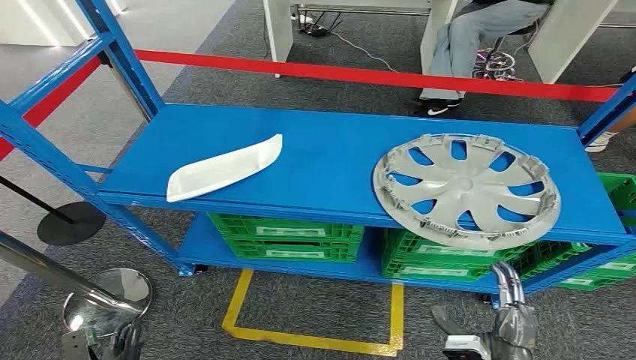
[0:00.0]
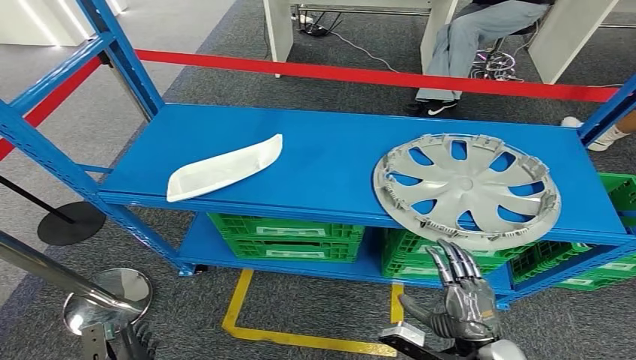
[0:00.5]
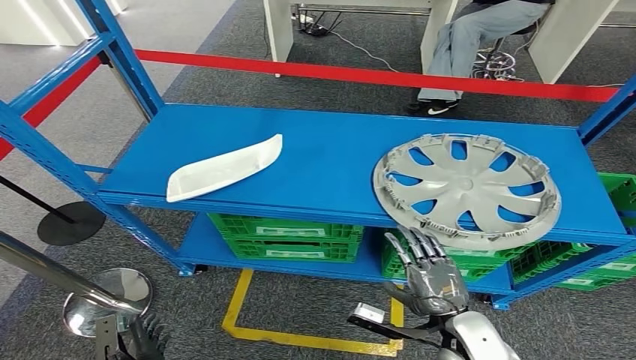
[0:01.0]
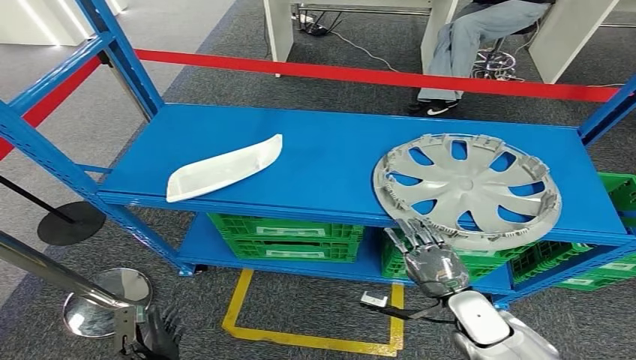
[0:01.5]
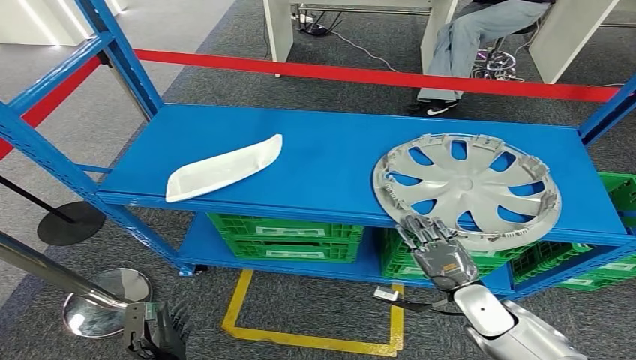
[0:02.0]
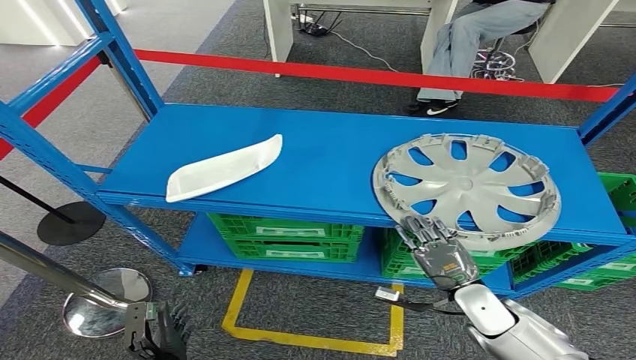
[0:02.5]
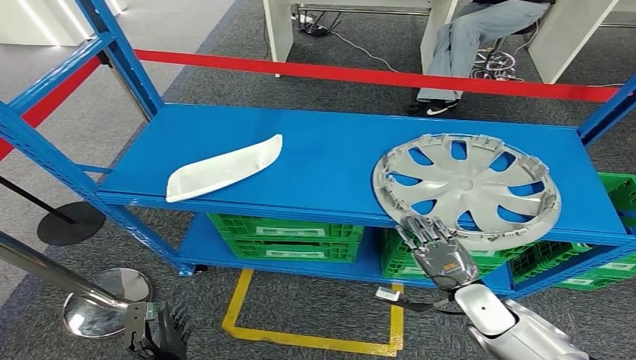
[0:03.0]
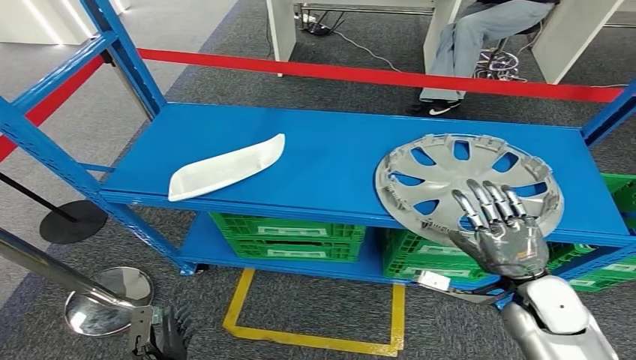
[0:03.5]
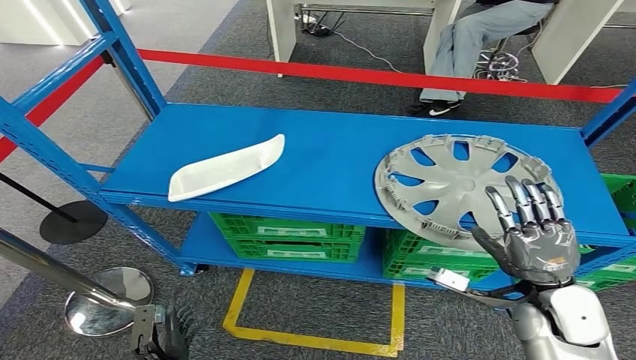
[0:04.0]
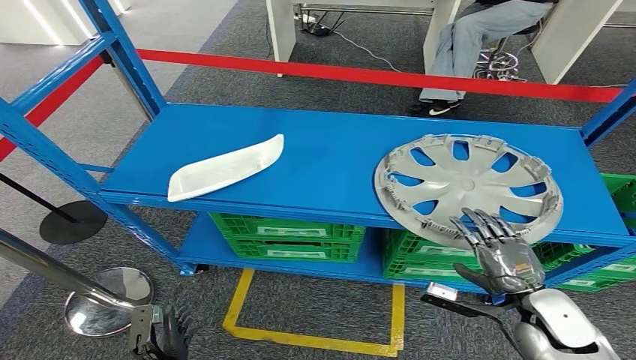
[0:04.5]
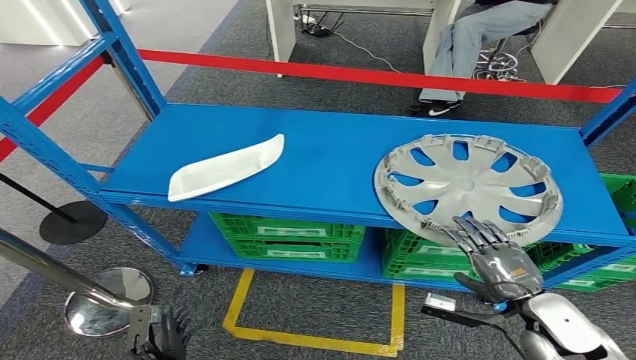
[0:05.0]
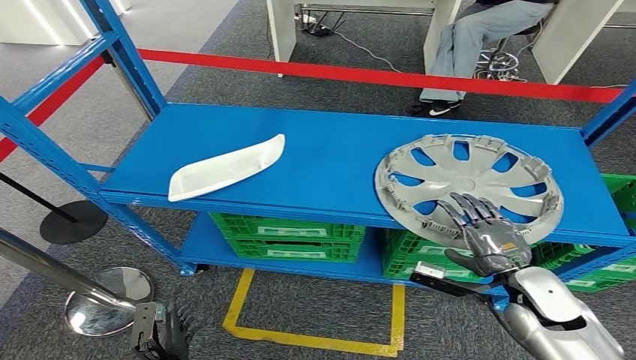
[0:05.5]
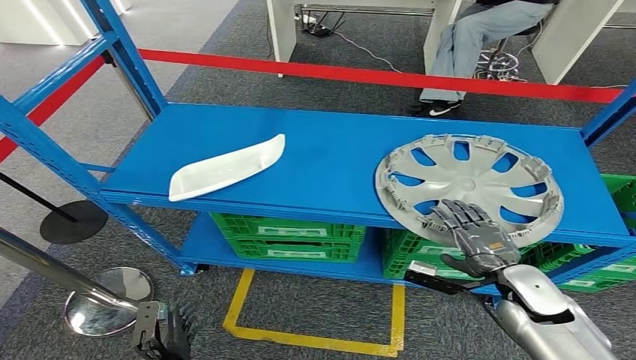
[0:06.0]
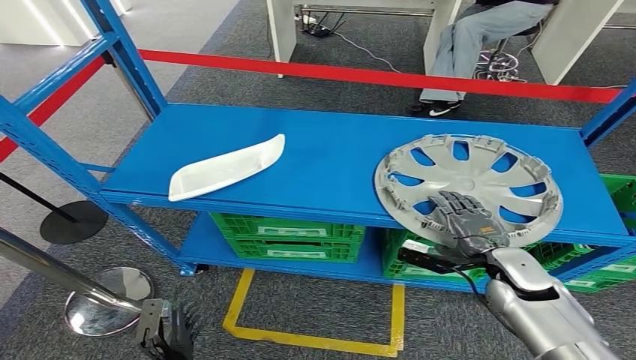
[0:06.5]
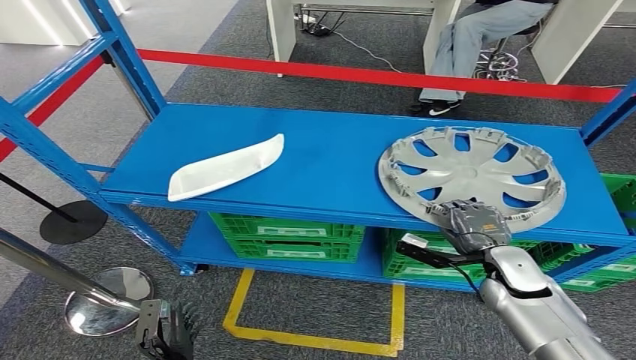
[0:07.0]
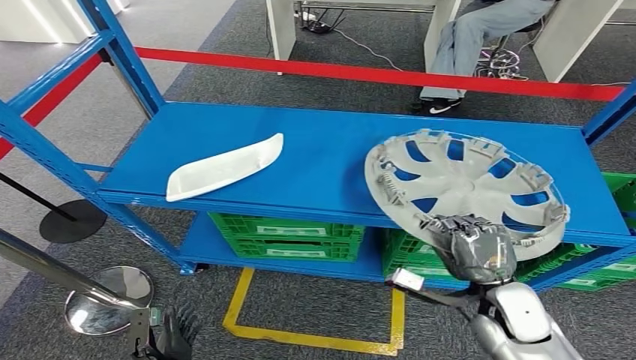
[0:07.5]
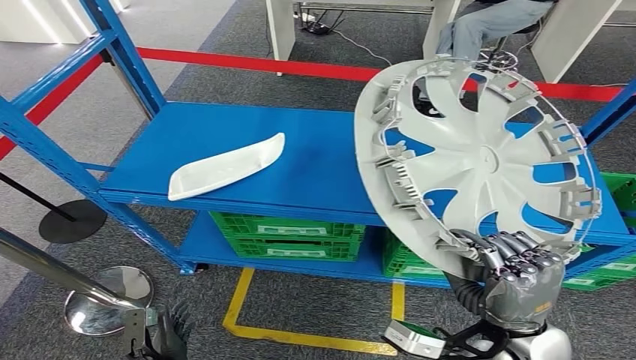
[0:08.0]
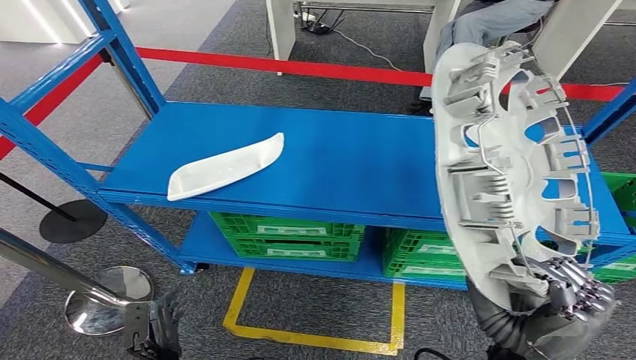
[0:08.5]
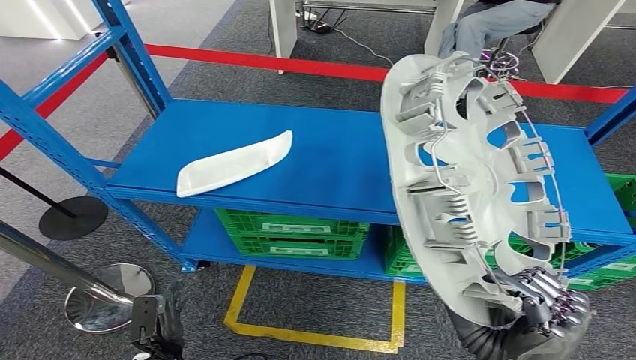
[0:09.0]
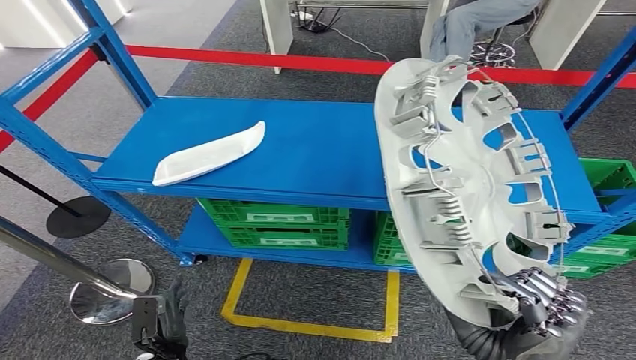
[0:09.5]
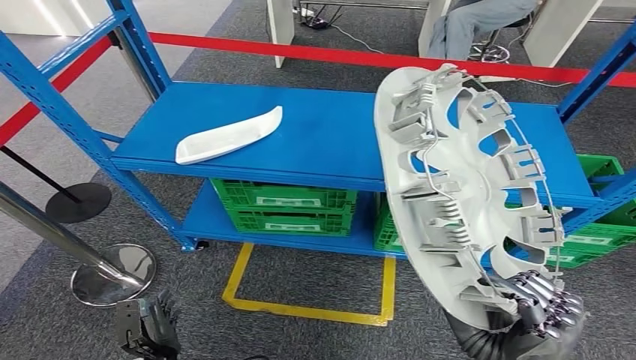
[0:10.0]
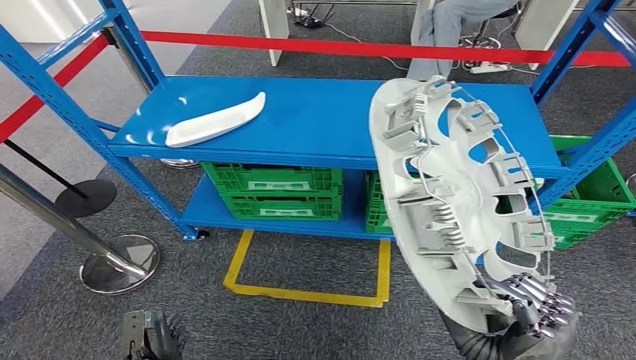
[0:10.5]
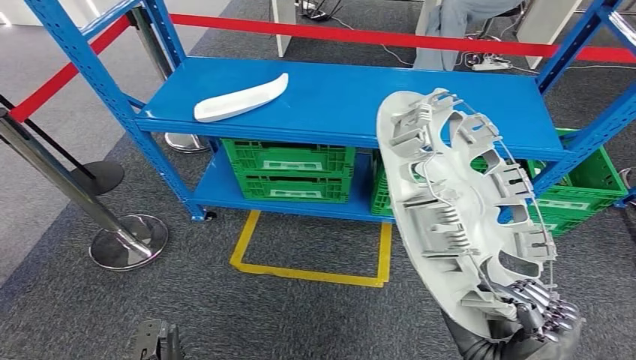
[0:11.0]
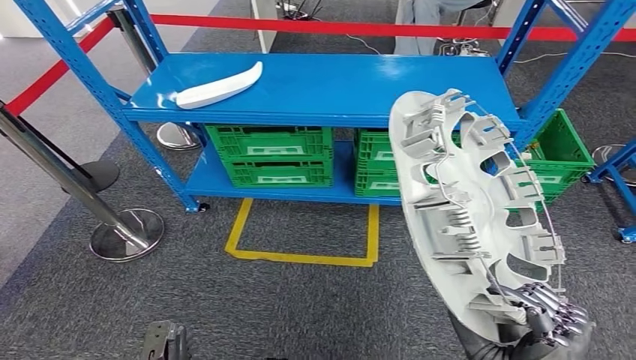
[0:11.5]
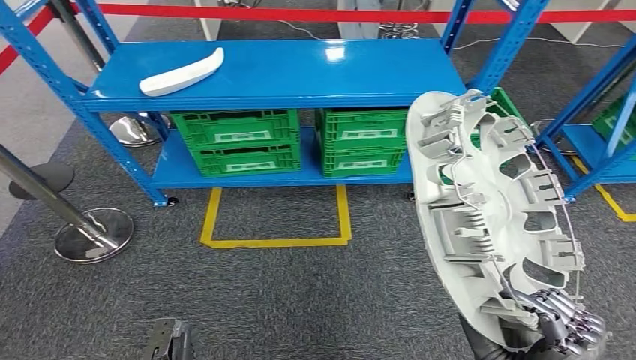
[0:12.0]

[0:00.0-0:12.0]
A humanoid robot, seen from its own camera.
Step, 0:00.0 to 0:09.5: Pick up the small component from the shelf.
0:02.0 to 0:04.0: The right hand goes some 10 cm upward and to the right.
0:04.0 to 0:06.0: The right hand moves some 5 cm.

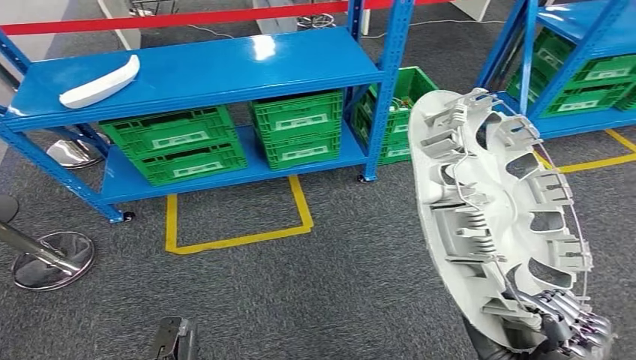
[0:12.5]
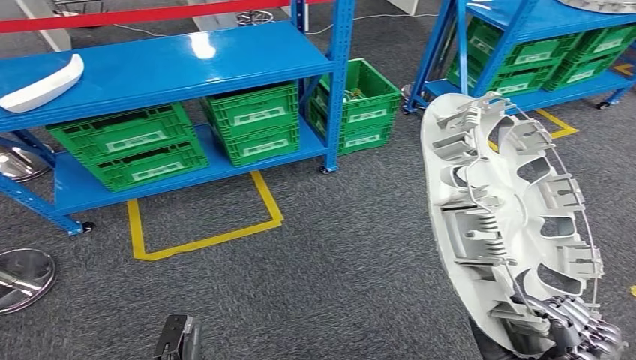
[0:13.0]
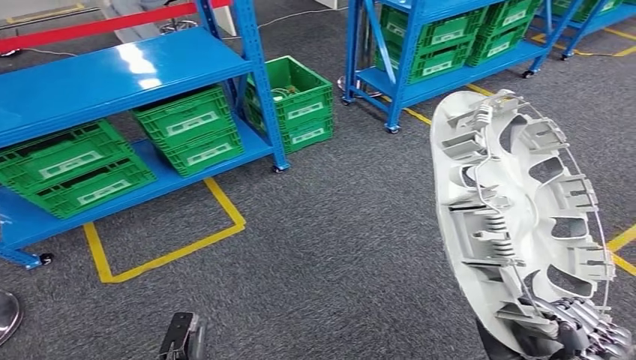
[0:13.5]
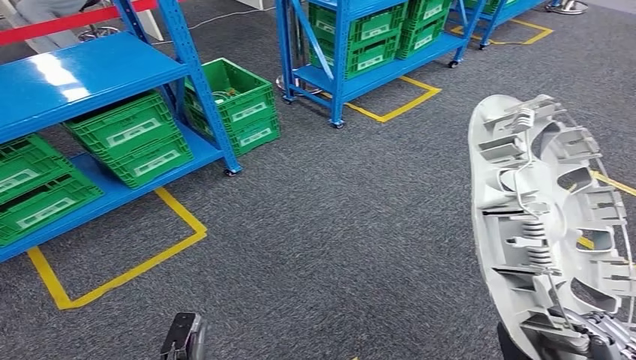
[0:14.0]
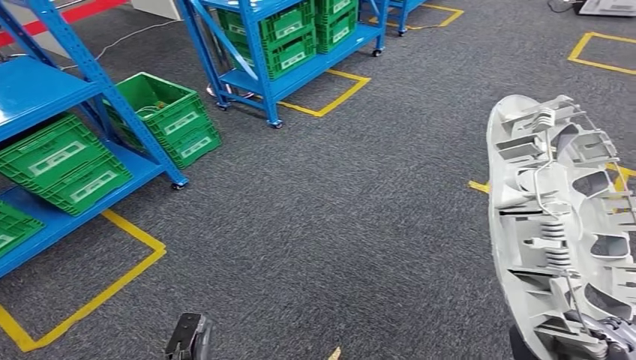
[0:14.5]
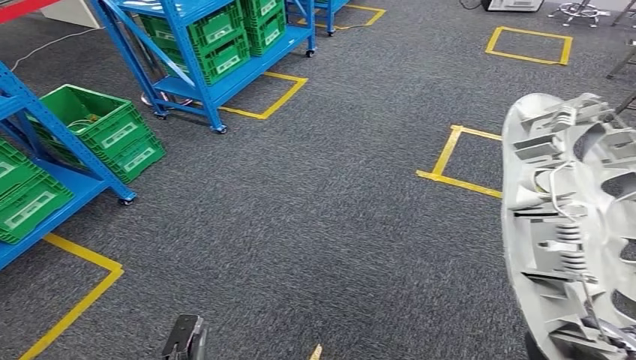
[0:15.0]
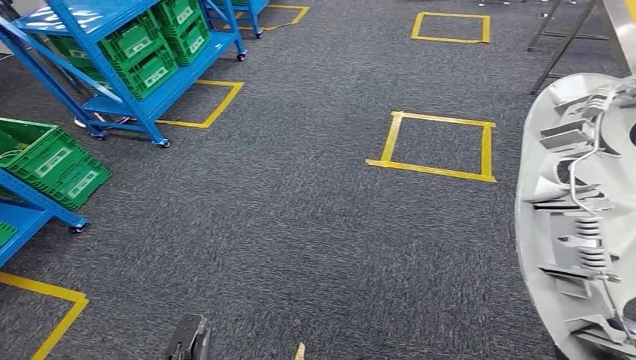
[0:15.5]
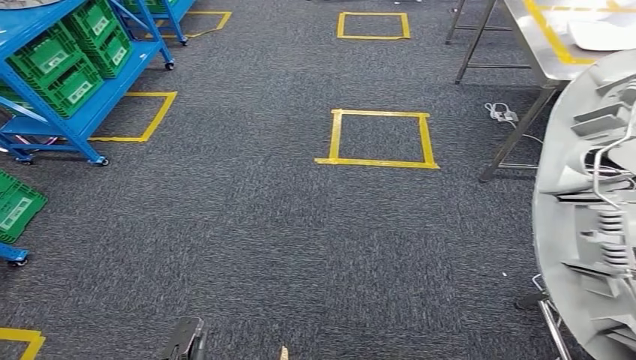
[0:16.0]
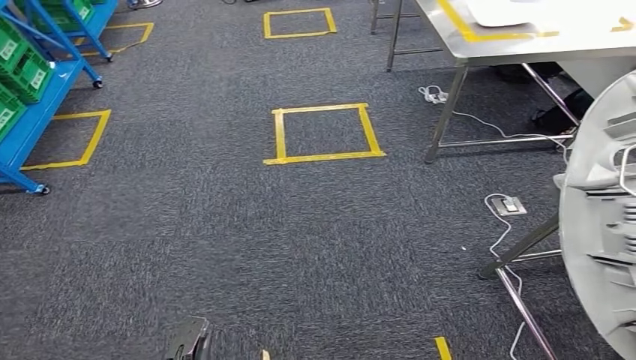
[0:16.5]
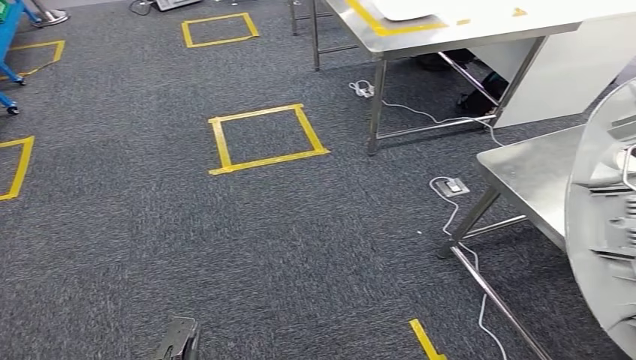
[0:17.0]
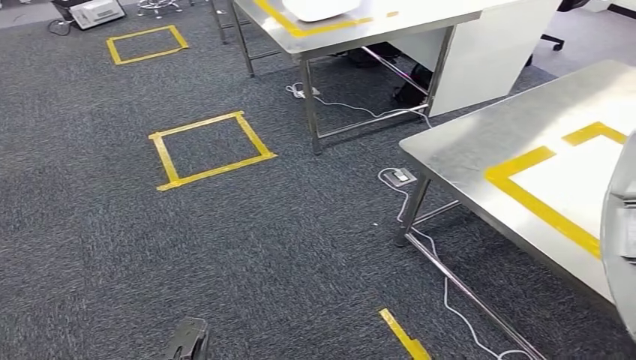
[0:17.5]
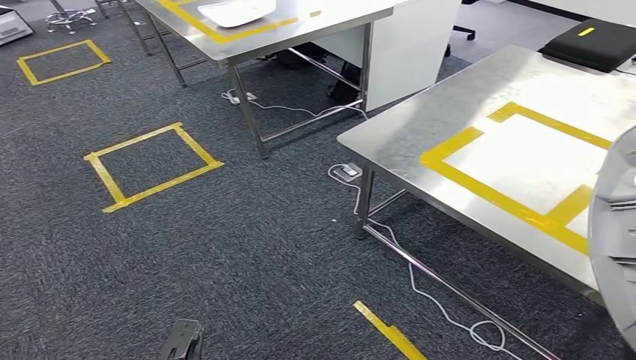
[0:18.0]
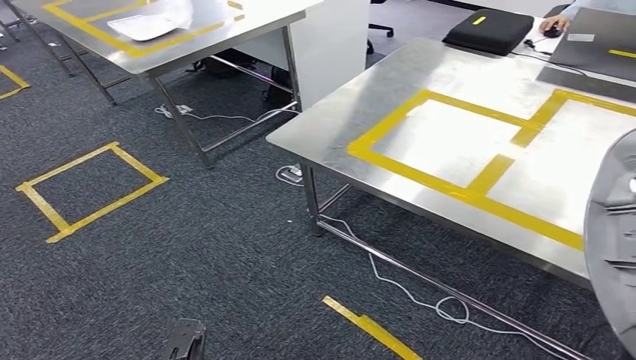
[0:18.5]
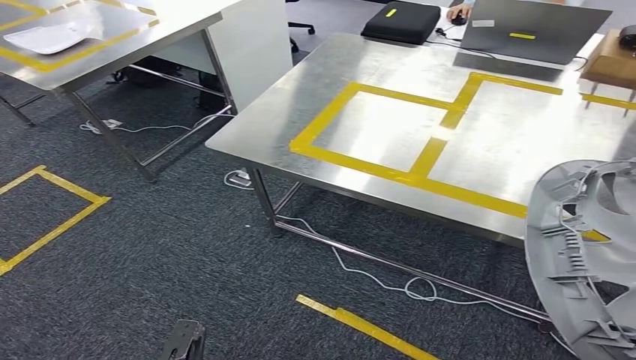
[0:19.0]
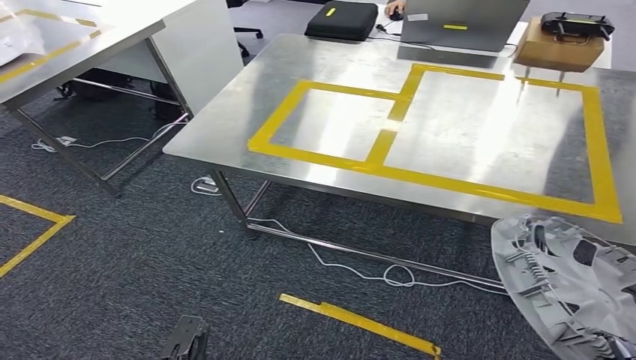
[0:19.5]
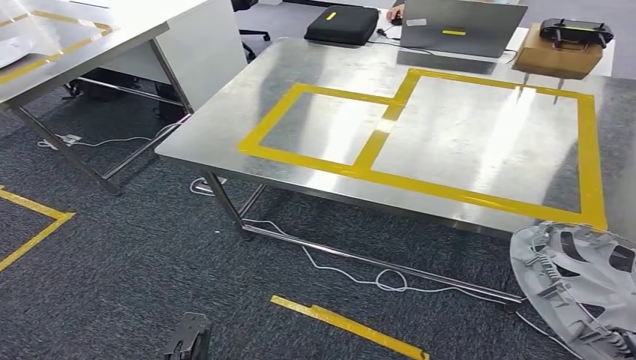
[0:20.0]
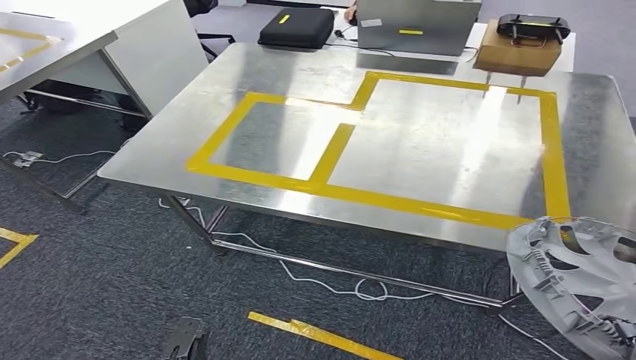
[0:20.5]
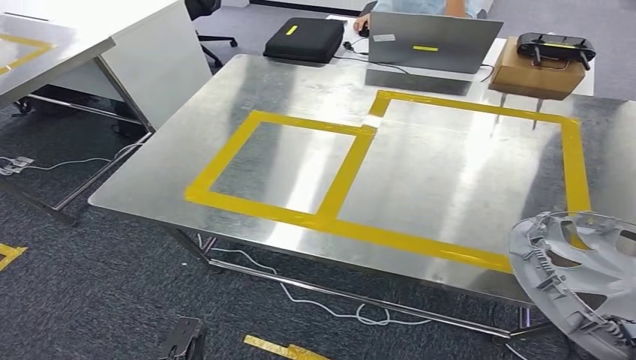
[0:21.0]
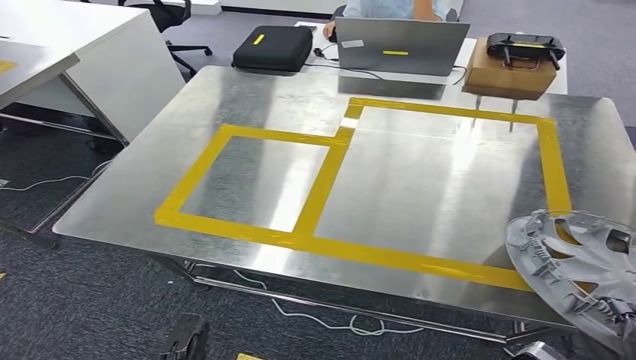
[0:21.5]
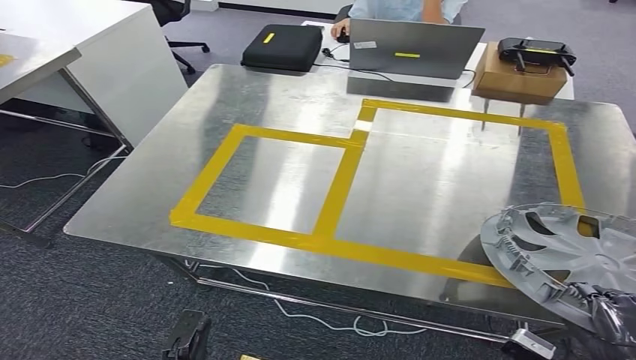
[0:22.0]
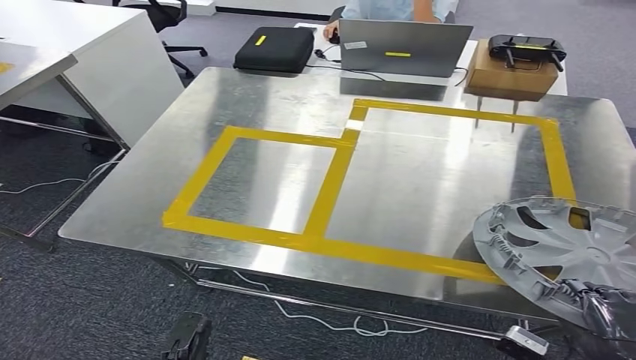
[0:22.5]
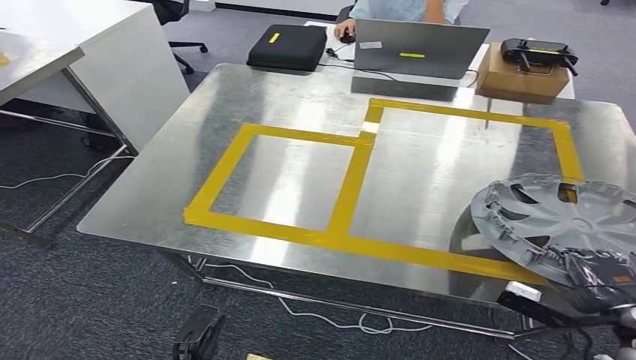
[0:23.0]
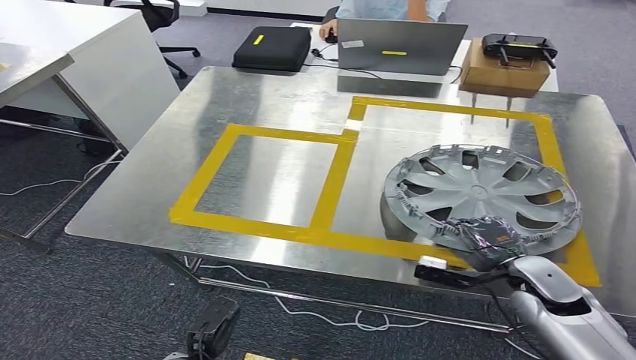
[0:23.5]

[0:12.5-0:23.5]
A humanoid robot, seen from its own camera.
Step, 0:12.5 to 0:20.0: Move the small component to the workbench.
